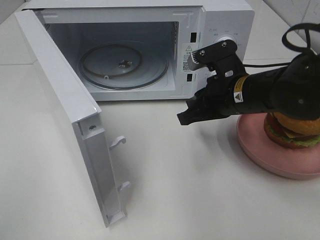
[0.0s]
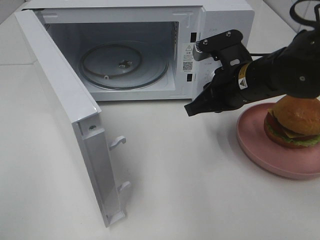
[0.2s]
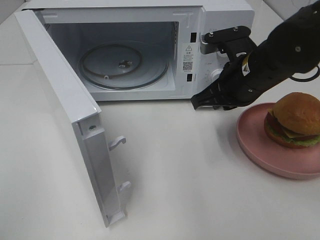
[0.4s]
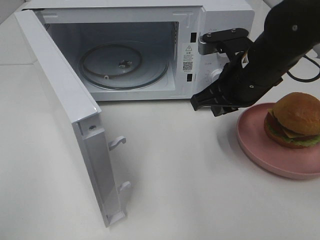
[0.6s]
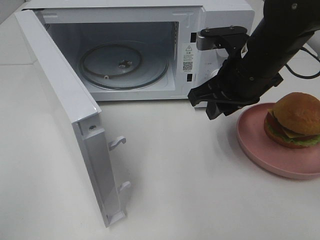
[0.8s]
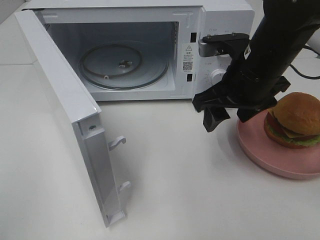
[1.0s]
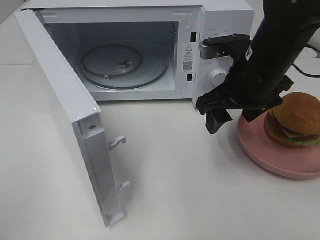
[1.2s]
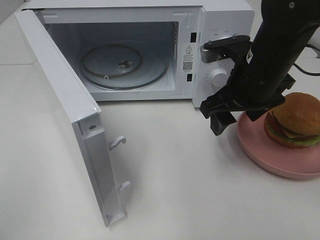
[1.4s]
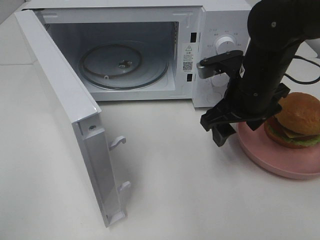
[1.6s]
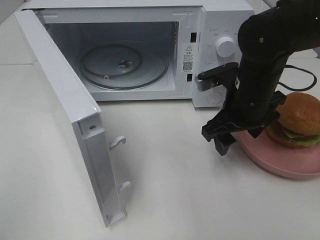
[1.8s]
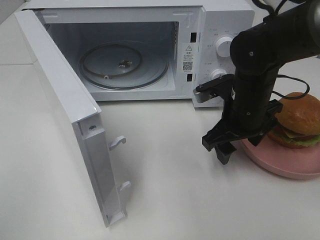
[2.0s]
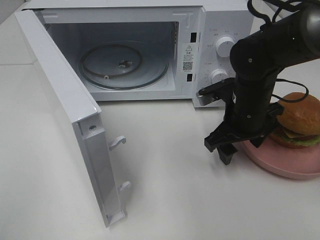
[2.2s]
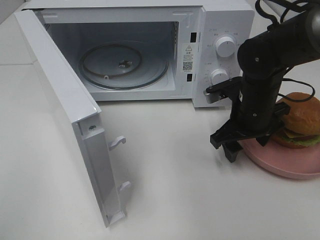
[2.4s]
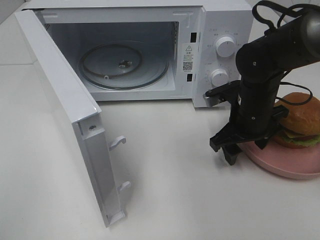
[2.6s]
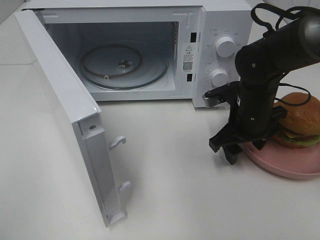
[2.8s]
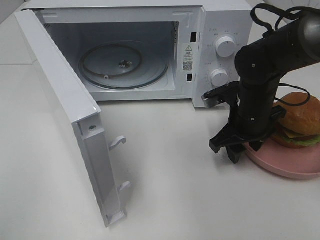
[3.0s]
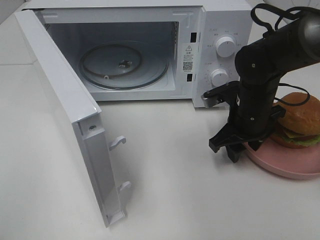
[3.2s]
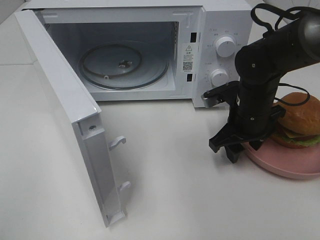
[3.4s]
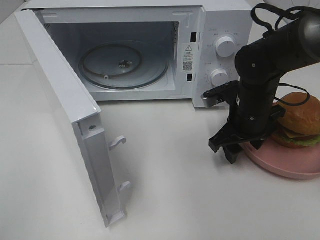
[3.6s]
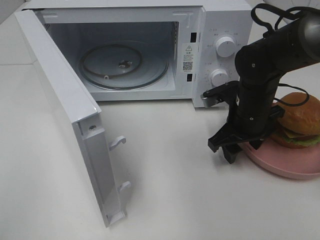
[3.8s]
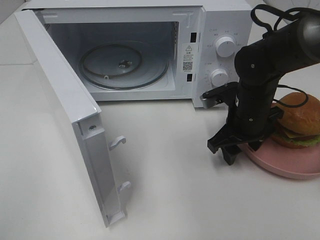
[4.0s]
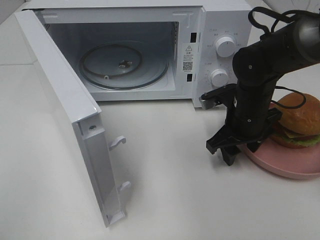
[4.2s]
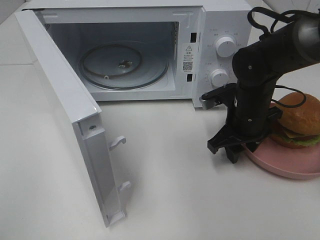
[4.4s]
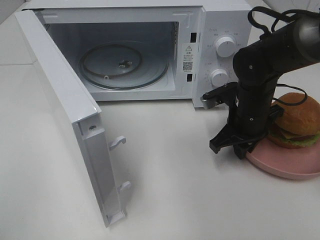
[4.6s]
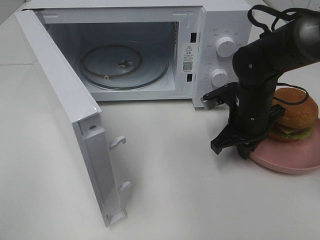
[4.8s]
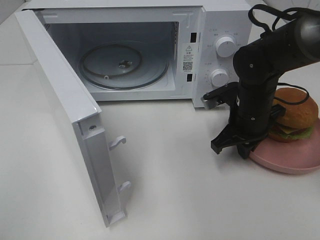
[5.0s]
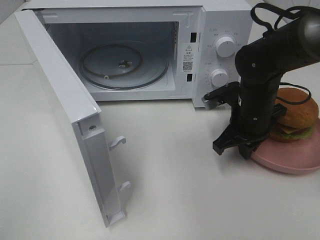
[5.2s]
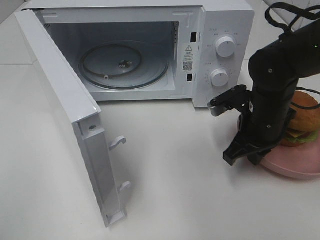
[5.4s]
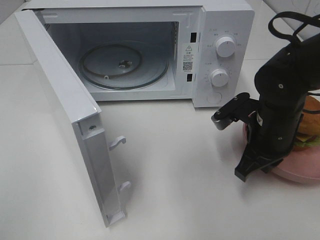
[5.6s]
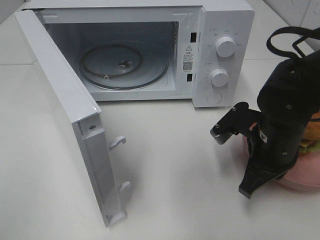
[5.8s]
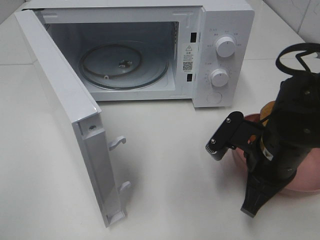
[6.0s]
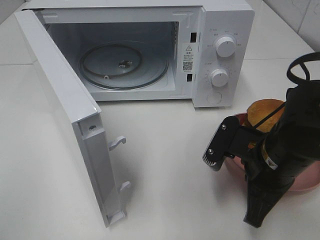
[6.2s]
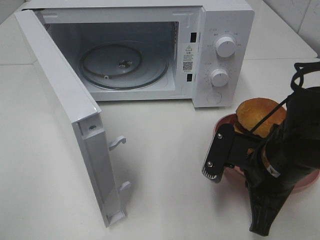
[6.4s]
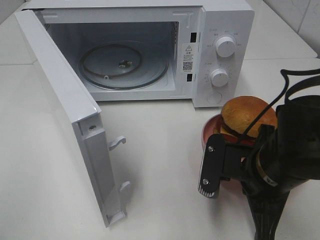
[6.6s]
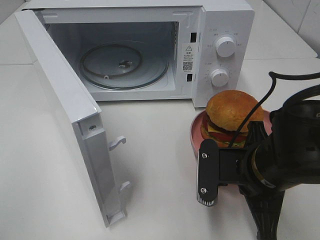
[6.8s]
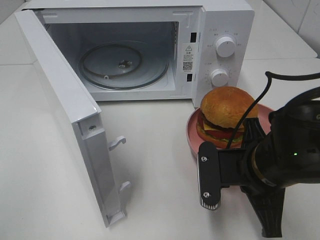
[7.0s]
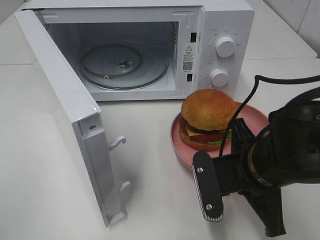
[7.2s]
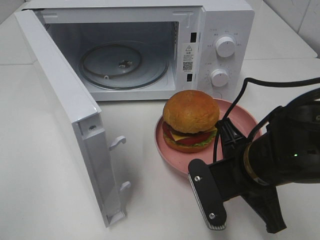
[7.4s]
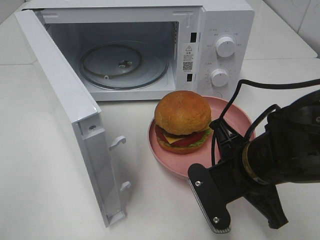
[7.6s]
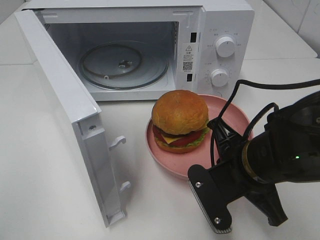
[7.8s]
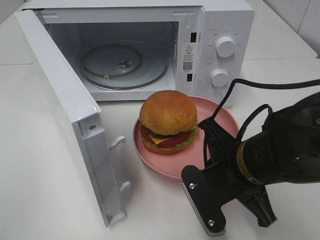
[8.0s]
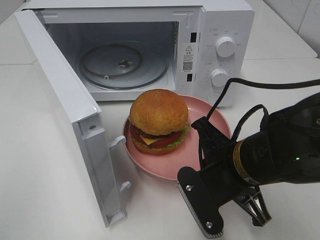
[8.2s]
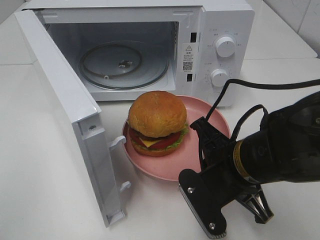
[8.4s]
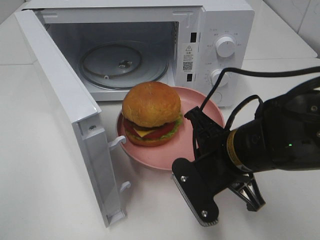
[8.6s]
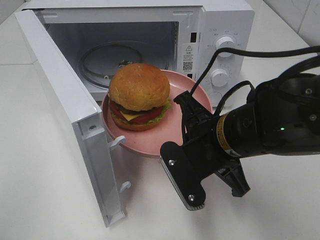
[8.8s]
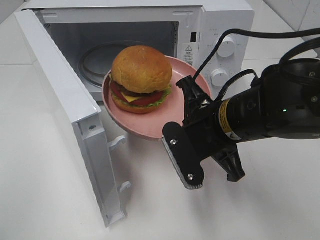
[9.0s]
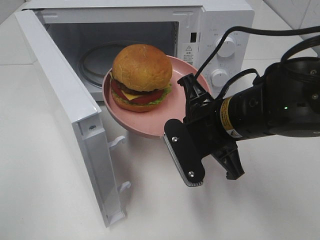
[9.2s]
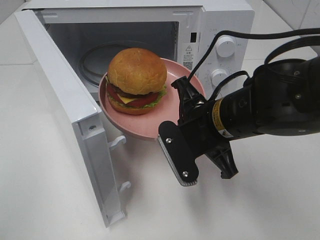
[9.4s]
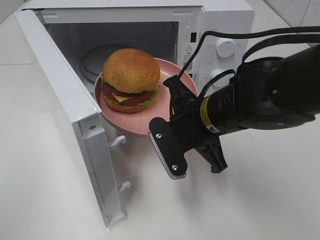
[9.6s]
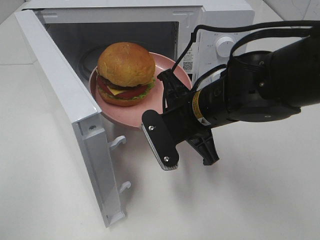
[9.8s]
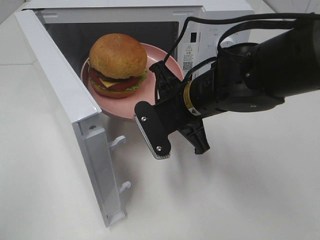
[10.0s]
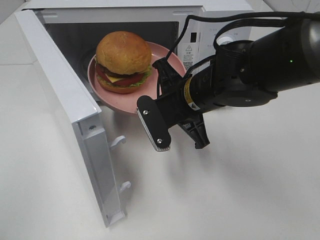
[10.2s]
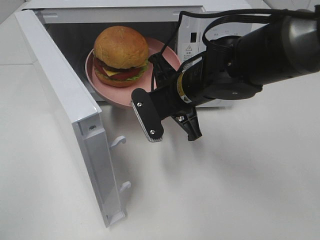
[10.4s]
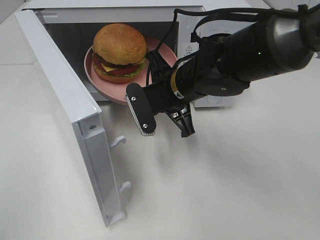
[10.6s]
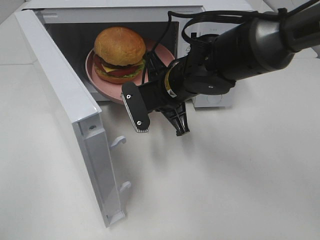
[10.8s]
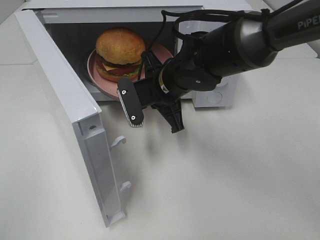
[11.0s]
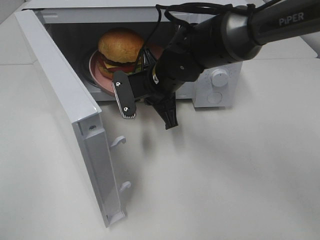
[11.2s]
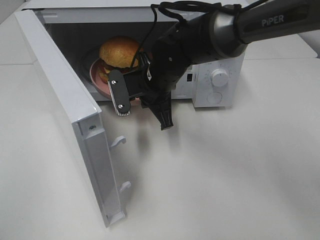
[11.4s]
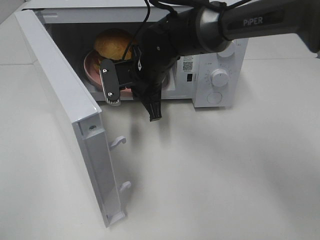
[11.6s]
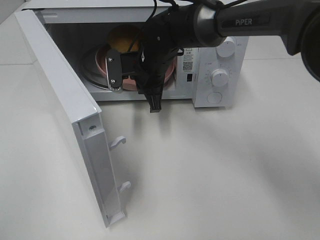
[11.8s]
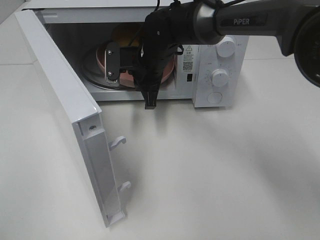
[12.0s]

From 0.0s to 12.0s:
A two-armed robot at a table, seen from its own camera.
Task of the whole recording: Heat the burger.
Step, from 0.0s to 4.8s: Right hand: grab the plate with the hamburger.
From 0.0s to 1.6s: The right gripper opens its fingers.
From 1.6s to 3.0s: The right gripper shifts some 5 cm downward.
From 3.0s to 4.4s: Both grippers stay about where they are.
From 4.4s to 6.0s: The right gripper moves backward, roughly 10 cm, and closes its fingers.
From 6.0s to 7.6s: The right gripper changes place by some 5 cm.
From 7.6s to 9.0s: The right gripper changes place by about 5 cm.
From 9.0s to 10.4s: The right gripper is displaced forward by some 10 cm.
From 10.4s to 12.0s: The right gripper goes roughly 15 cm forward and to the left.

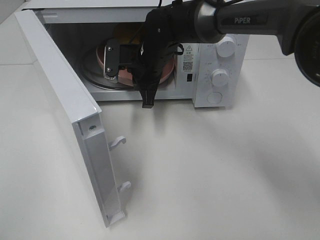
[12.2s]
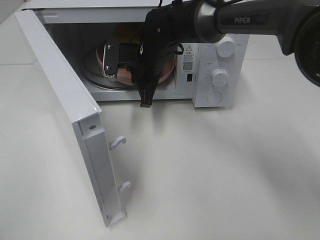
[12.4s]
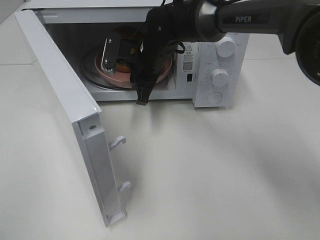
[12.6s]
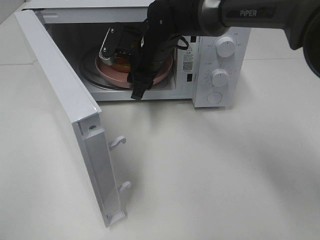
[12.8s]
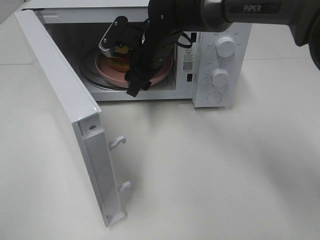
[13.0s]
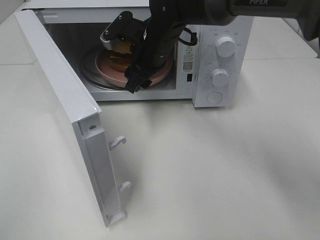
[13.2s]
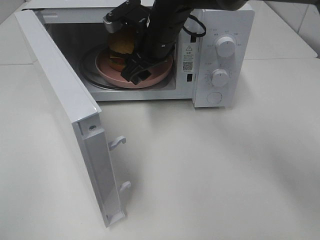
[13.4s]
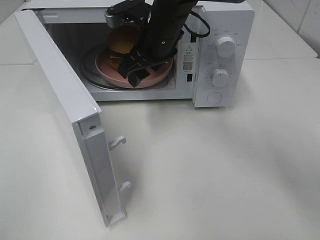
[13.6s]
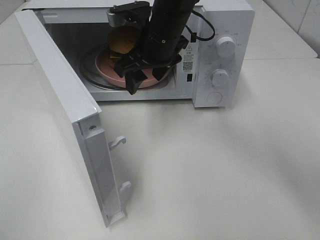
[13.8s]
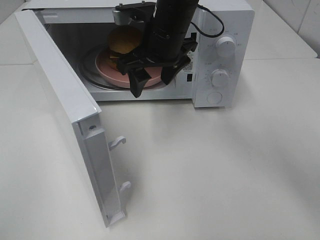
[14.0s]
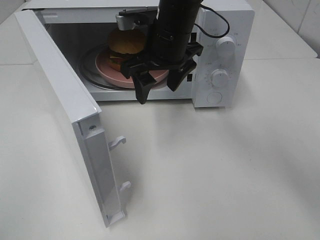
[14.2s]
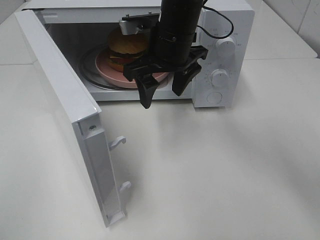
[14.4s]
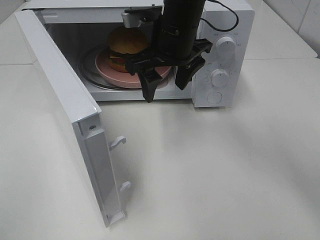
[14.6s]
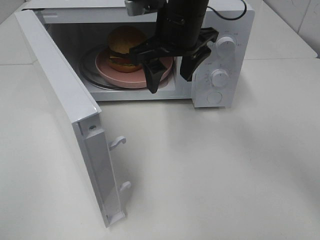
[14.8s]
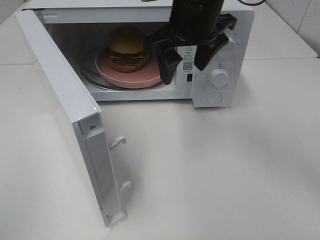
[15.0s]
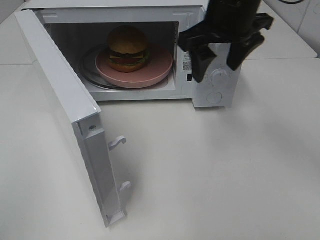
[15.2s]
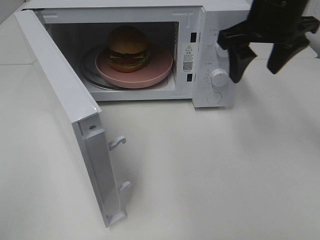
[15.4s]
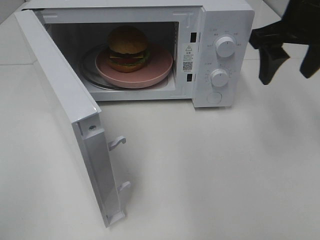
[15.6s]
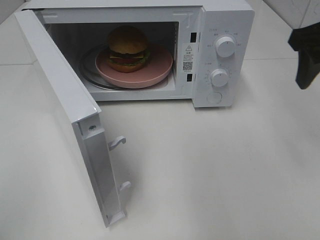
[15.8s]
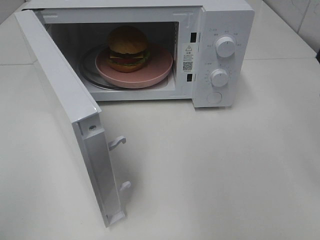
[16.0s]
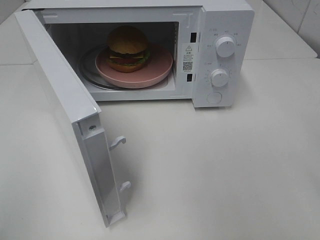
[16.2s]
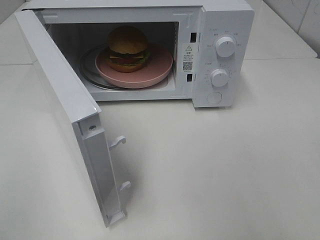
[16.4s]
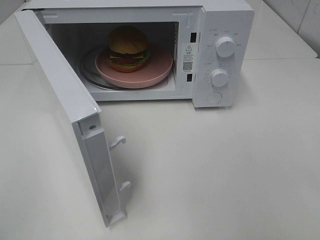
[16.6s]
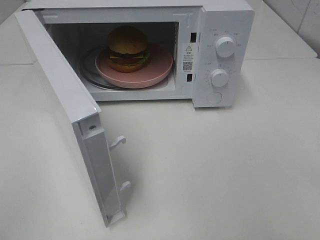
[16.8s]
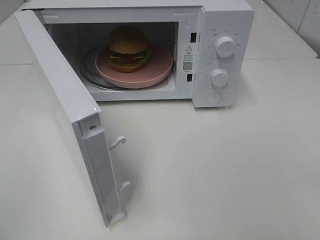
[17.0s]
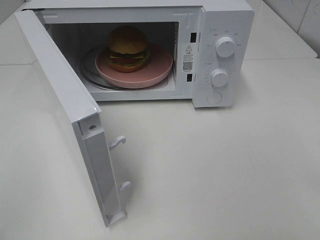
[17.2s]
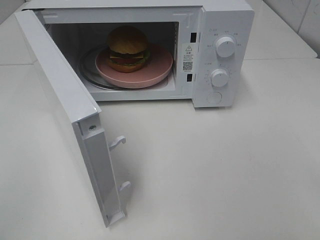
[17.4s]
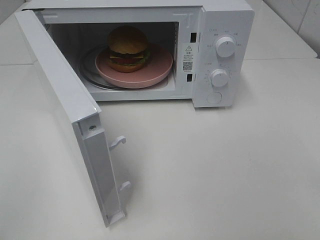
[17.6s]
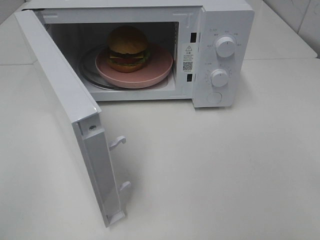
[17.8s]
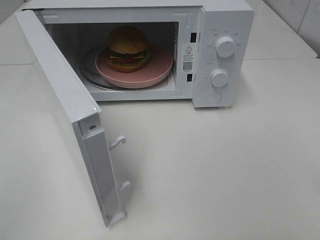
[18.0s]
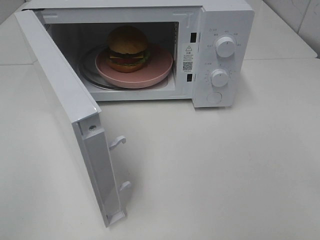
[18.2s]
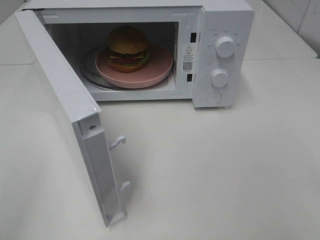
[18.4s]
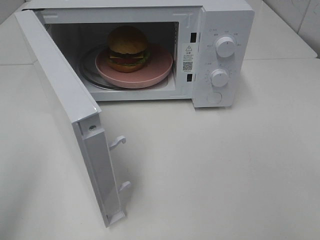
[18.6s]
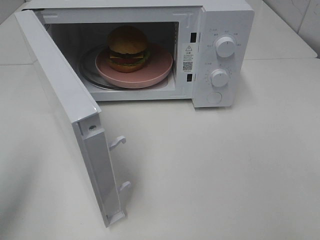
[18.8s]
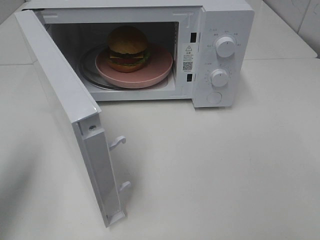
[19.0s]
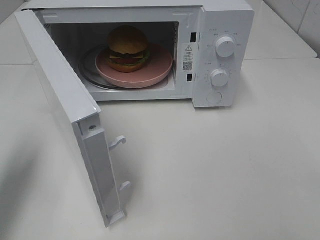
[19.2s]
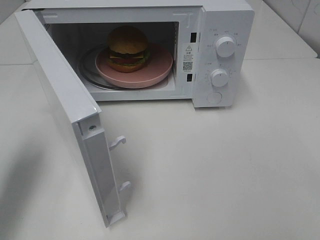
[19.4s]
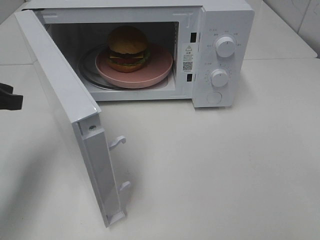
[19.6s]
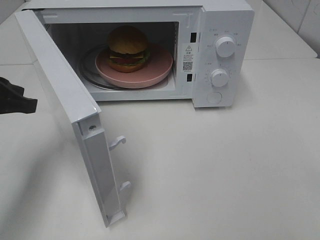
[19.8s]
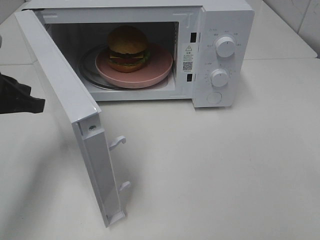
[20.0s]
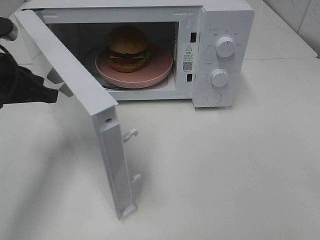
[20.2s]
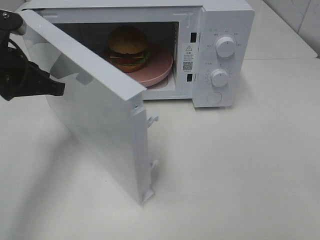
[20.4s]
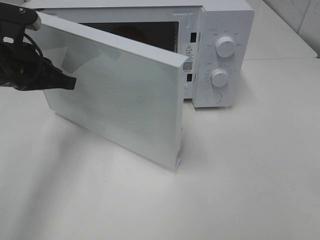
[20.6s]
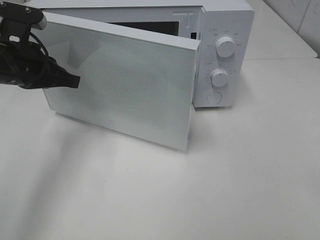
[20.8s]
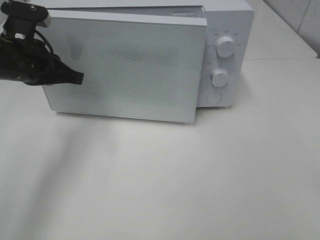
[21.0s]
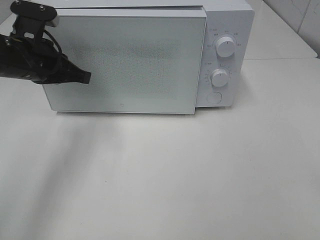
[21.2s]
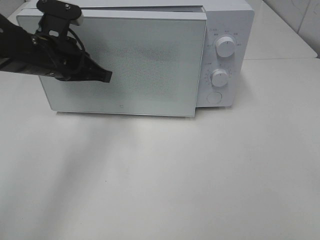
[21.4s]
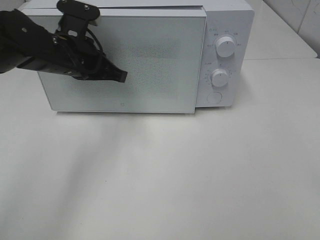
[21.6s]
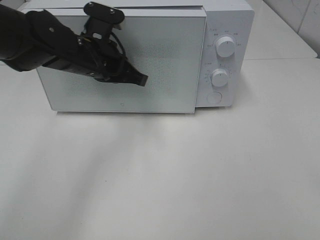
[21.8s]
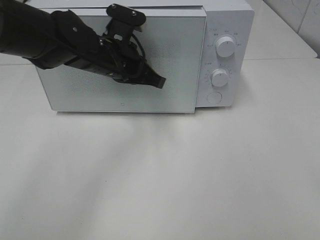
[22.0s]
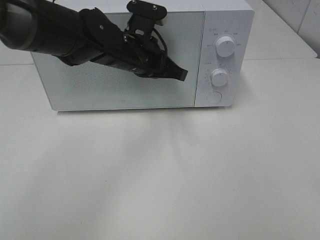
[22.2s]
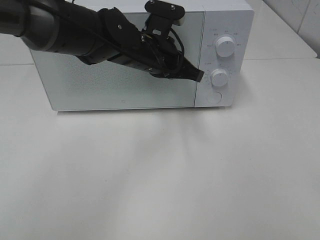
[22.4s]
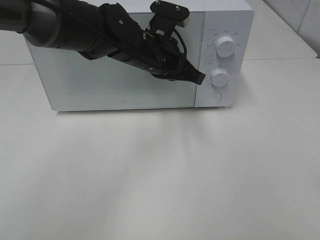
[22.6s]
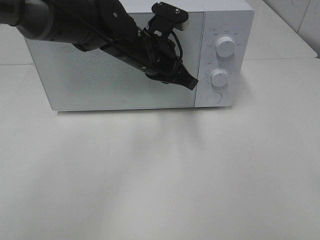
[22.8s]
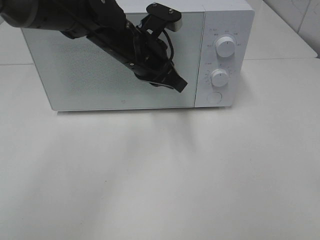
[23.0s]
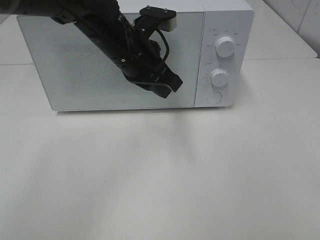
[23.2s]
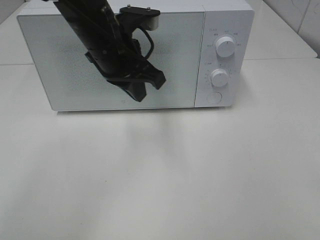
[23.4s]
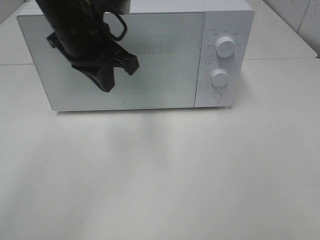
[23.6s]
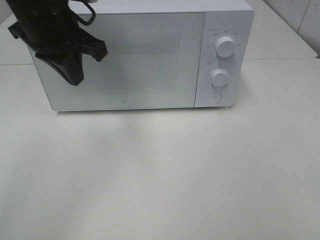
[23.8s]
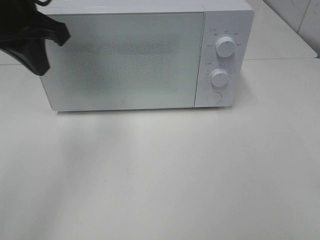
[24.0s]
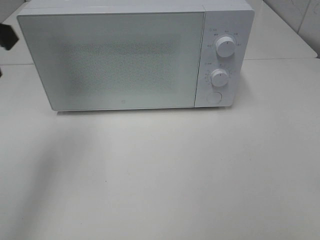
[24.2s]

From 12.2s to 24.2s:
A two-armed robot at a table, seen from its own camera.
Task of the whole recording: Heat the burger.
Step, from 12.8s to 22.4s: Left hand: close the microwave door.
From 12.2s to 13.8s: The right gripper travels upward by approximately 5 cm, and opens up.
From 13.8s to 15.2s: The right gripper travels to the right and upward by about 15 cm.
From 15.2s to 16.6s: The right gripper travels backward and to the right by roughly 30 cm.
From 18.2s to 19.8s: The left gripper moves forward, roughly 25 cm.
From 19.8s to 21.2s: The left gripper travels forward and to the right by some 10 cm.
From 21.2s to 22.6s: The left gripper shifts approximately 20 cm to the right.
From 22.6s to 24.2s: The left gripper goes roughly 30 cm to the left, upward and backward.
